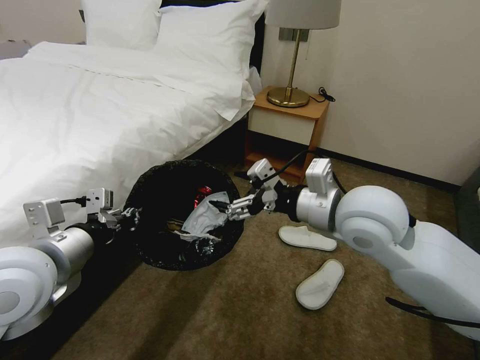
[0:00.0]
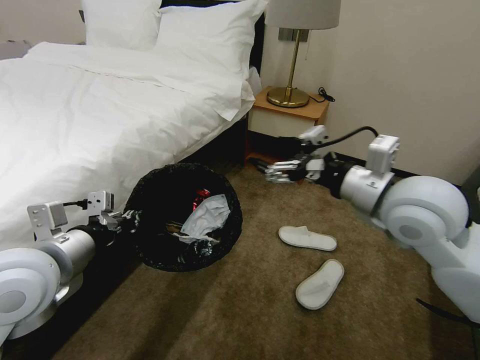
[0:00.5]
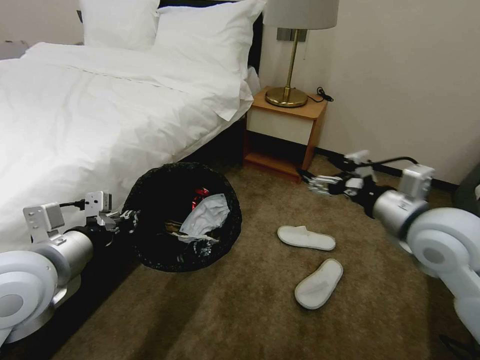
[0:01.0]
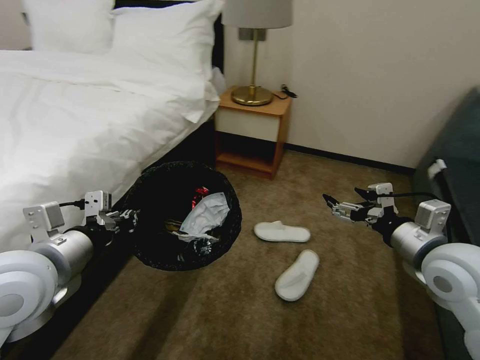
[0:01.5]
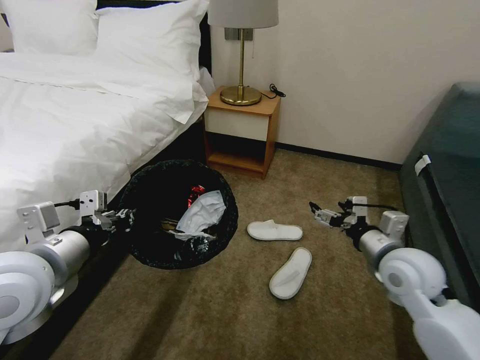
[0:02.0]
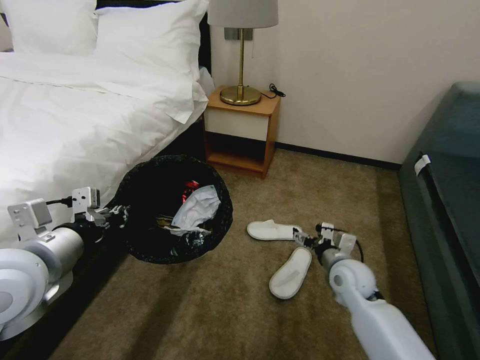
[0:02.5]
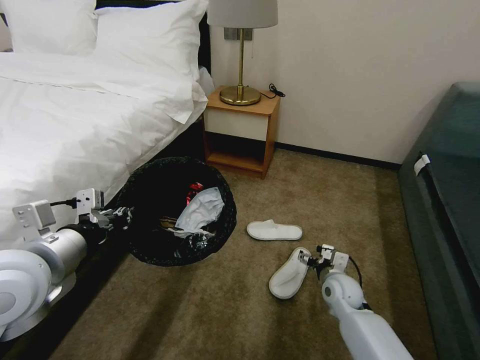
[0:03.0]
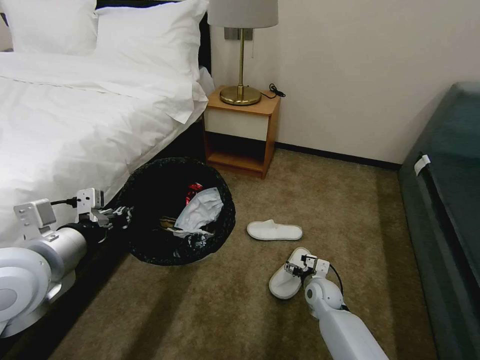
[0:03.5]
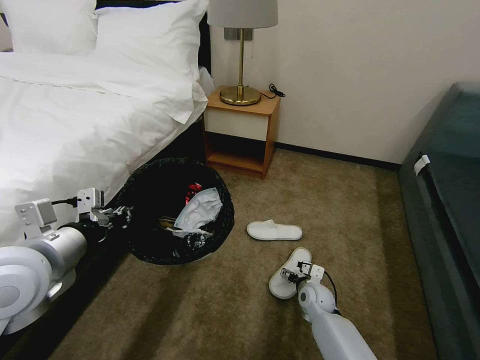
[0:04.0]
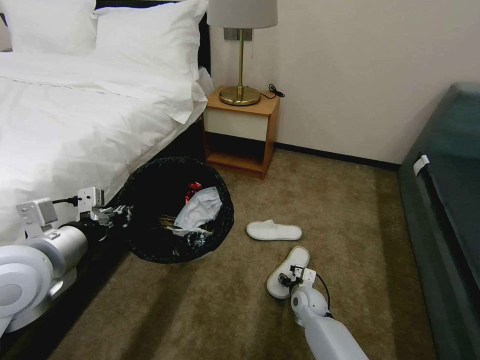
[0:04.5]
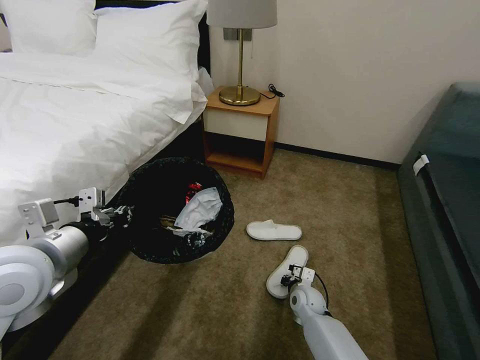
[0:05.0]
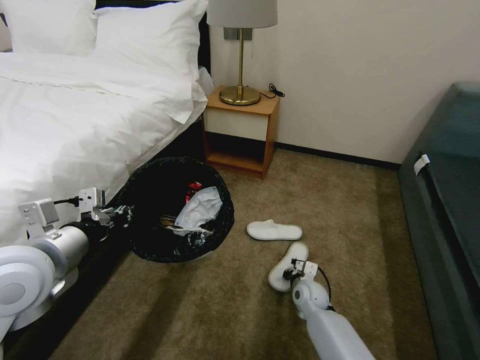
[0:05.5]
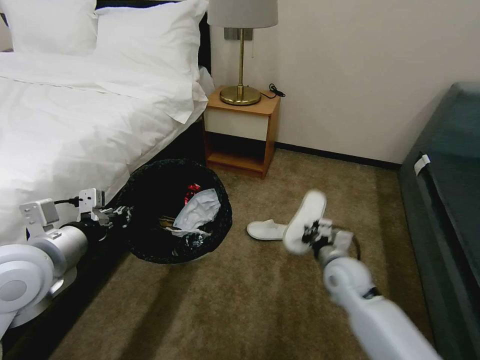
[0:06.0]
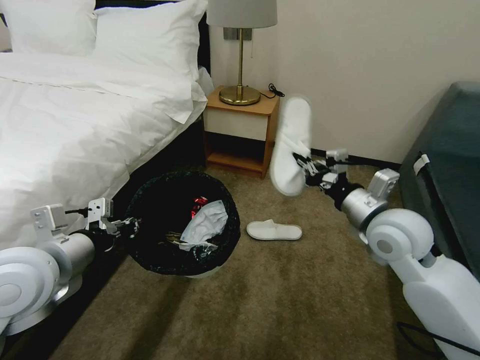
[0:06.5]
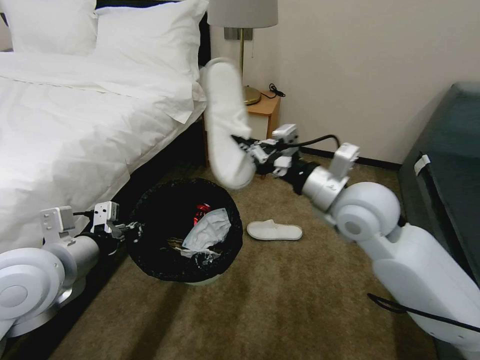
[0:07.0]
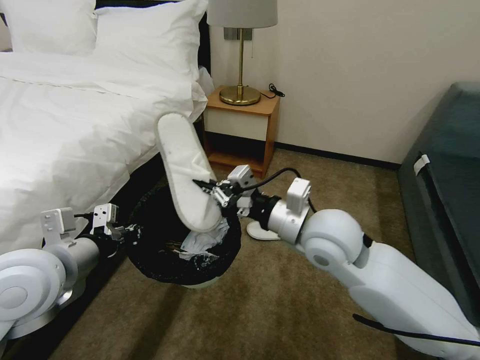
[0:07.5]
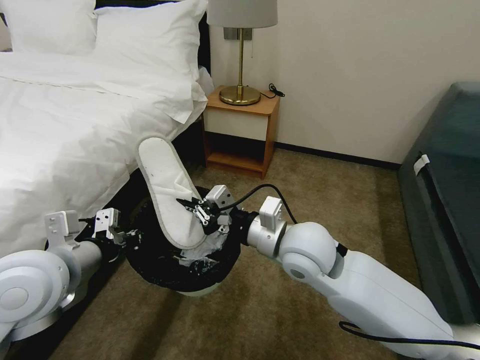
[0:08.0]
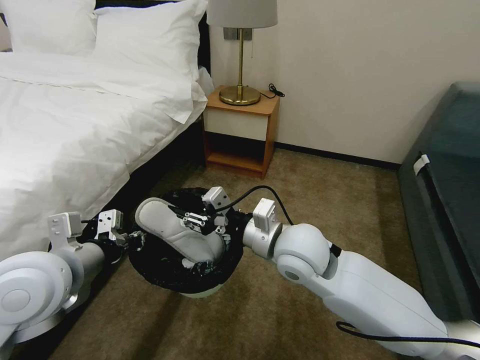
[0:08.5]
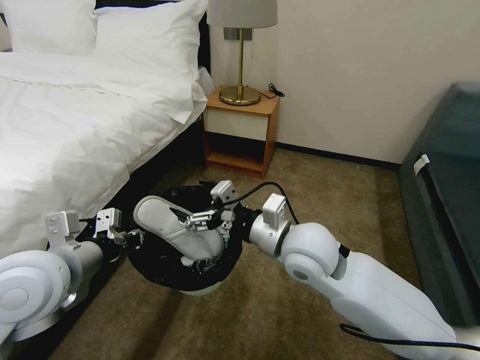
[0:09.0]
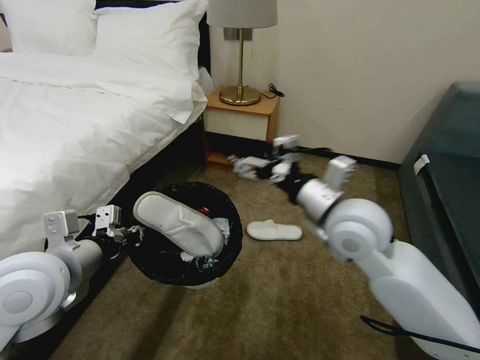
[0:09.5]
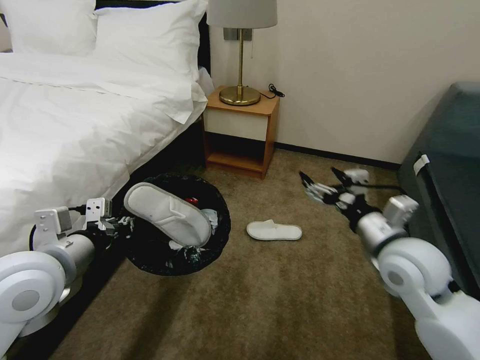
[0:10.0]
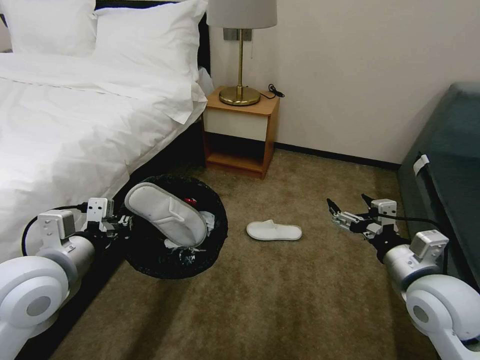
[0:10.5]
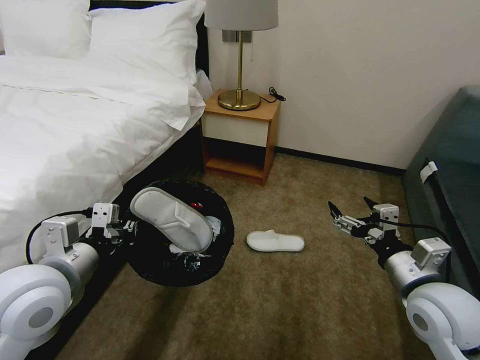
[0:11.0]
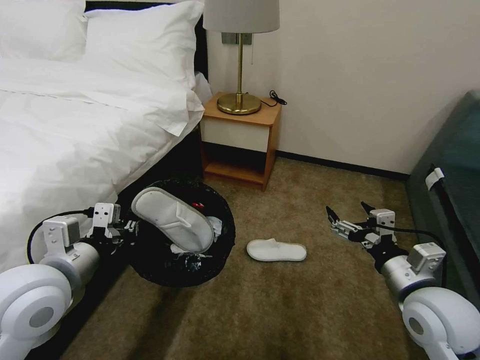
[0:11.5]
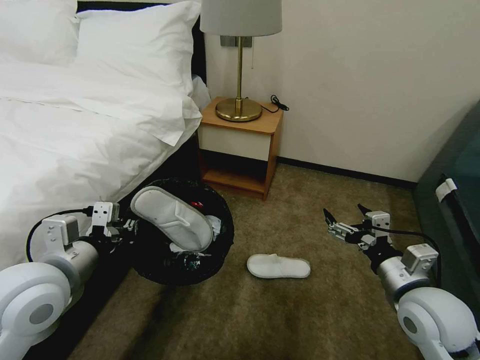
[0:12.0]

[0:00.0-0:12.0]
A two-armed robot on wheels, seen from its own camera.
Task of the whole recording: Pick up the trash bin, then pick up the garbage on the floor and place it into the trash bin.
0:00.0 to 0:02.0: The right gripper goes approximately 20 cm downward and to the right.
0:02.0 to 0:04.0: The right gripper goes about 30 cm downward.
0:04.0 to 0:06.0: The right gripper goes roughly 20 cm upward, and closes.
0:06.0 to 0:08.0: The right gripper is displaced upward and to the left by approximately 20 cm.
0:08.0 to 0:10.0: The right gripper shifts approximately 20 cm to the right, and opens.
0:10.0 to 0:12.0: The right gripper goes about 10 cm backward and downward.

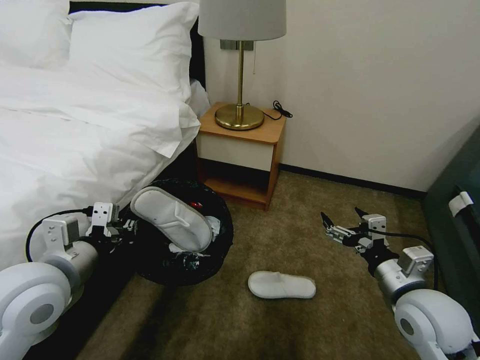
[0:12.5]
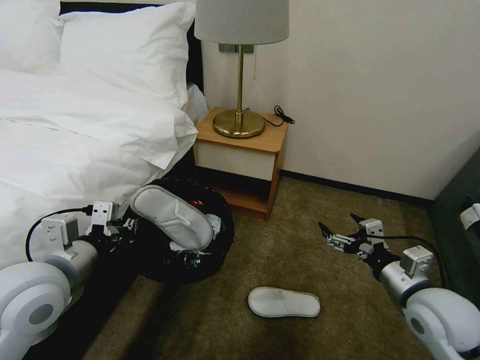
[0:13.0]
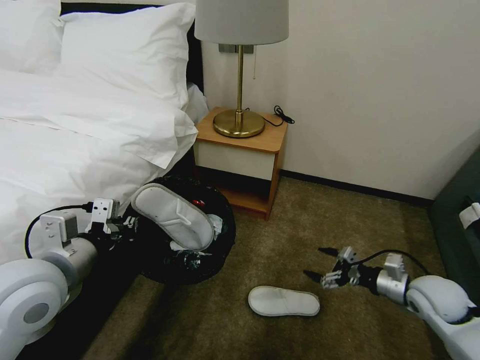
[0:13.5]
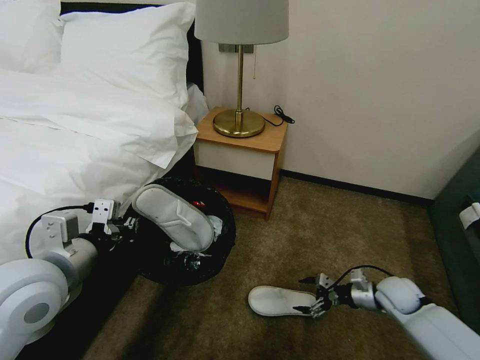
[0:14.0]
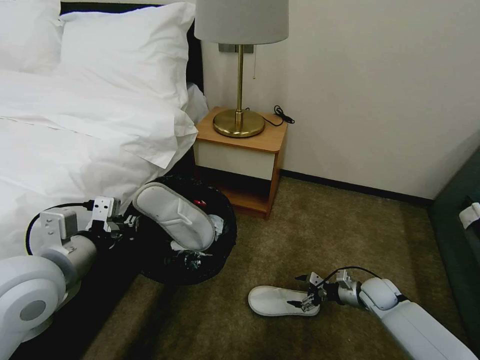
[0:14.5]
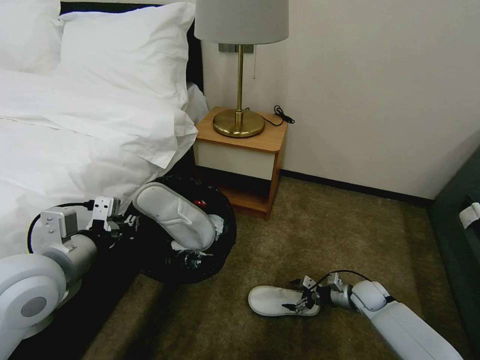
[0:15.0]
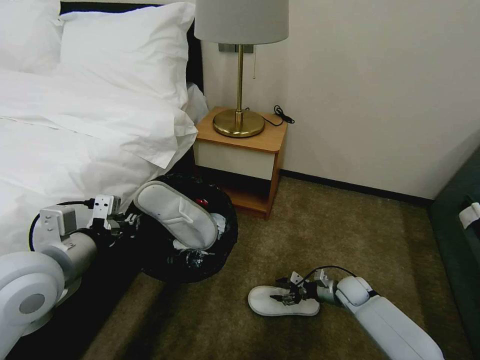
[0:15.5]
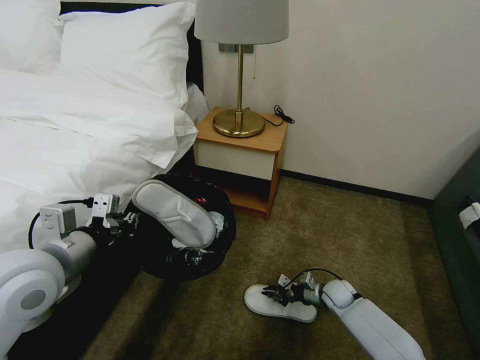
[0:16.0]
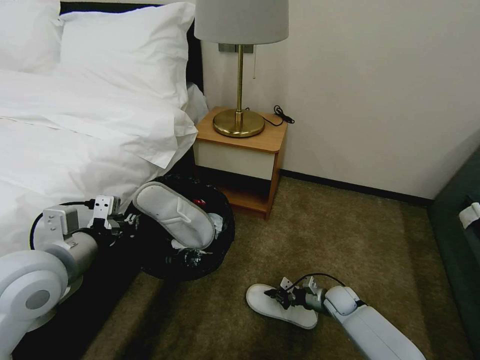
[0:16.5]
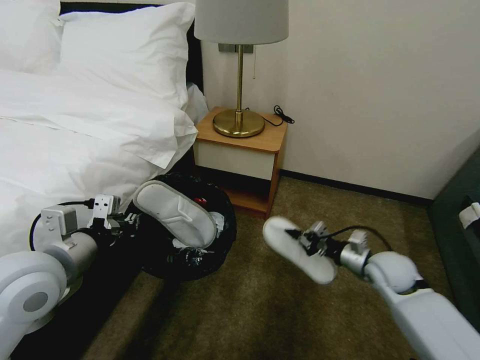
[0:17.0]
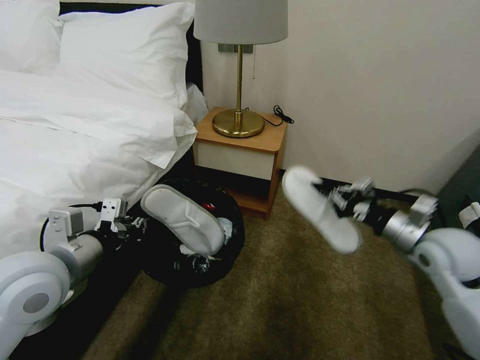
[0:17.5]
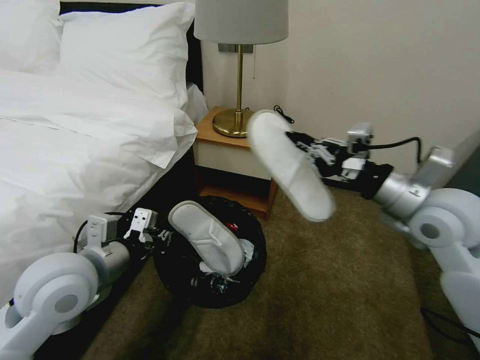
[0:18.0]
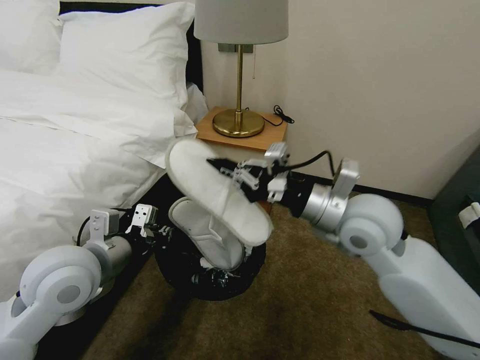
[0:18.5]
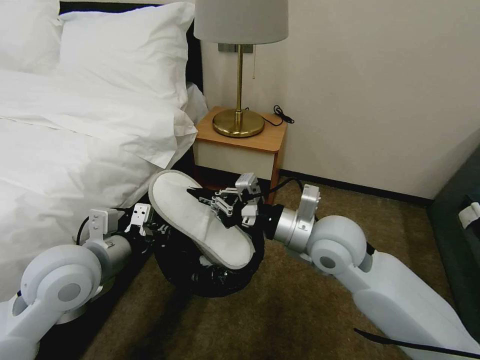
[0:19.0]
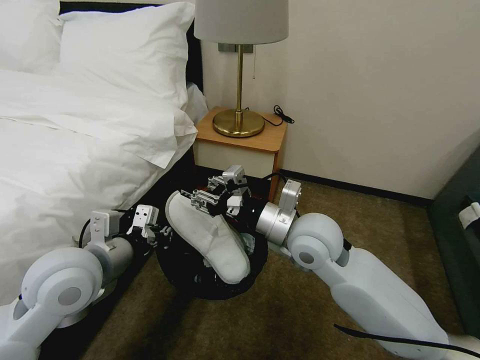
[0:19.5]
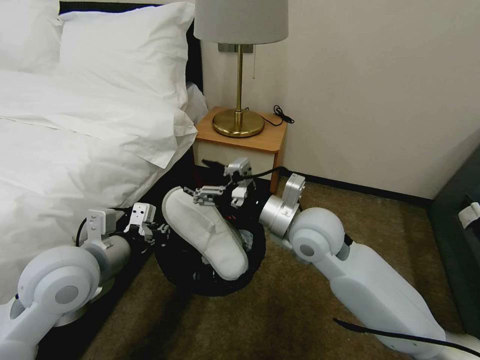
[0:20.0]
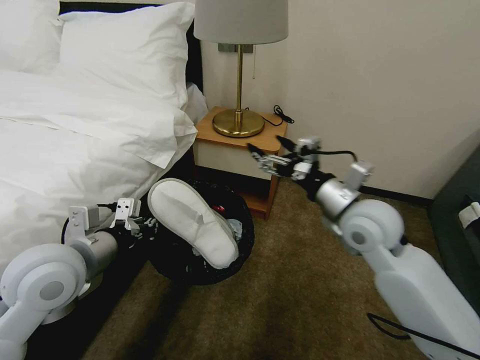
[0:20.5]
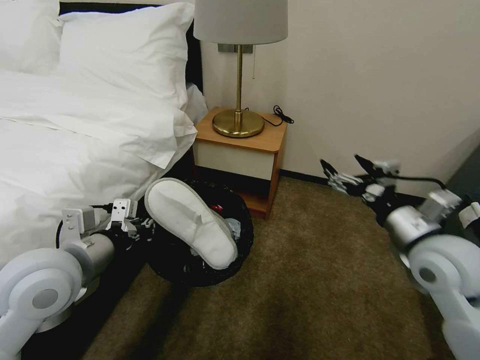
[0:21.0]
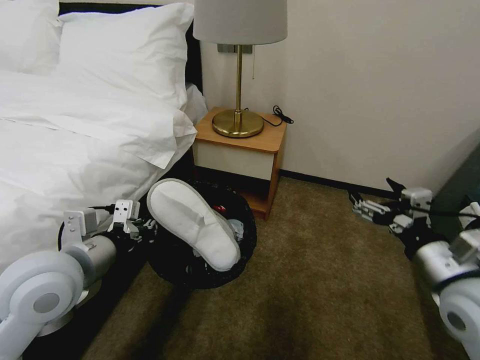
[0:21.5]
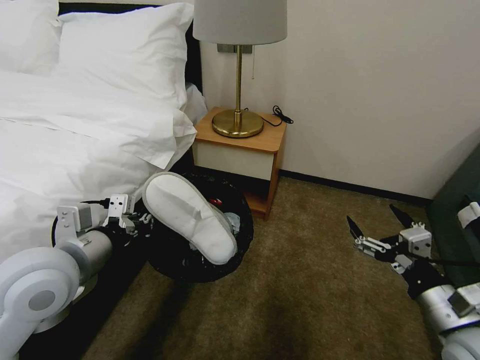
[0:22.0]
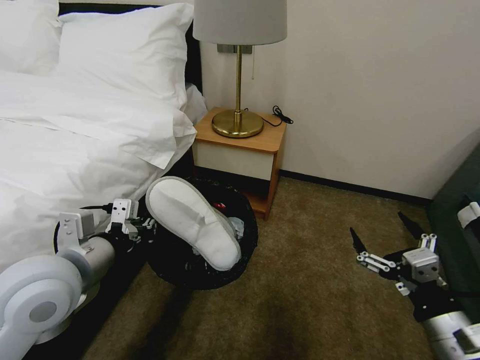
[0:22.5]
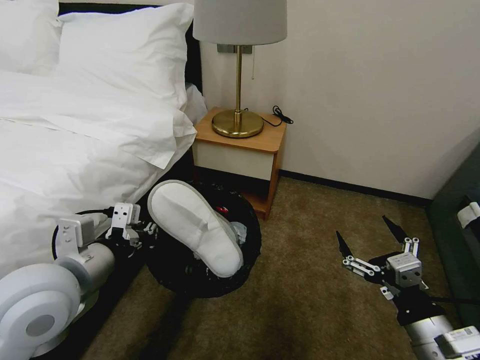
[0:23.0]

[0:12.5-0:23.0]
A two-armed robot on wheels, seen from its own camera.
Task of the whole recording: Pick up the trash bin, then pick up the garbage on the floor and place it into the trash bin.
0:12.5 to 0:14.5: The right gripper shifts roughly 25 cm downward and forward.
0:14.5 to 0:16.5: The right gripper is displaced to the left and downward by some 10 cm, and closes up.
0:16.5 to 0:19.0: The right gripper goes some 40 cm upward.
0:19.0 to 0:21.0: The right gripper heads to the right, covering about 15 cm, and opens its fingers.
0:21.0 to 0:23.0: The right gripper travels backward and downward by approximately 20 cm.
